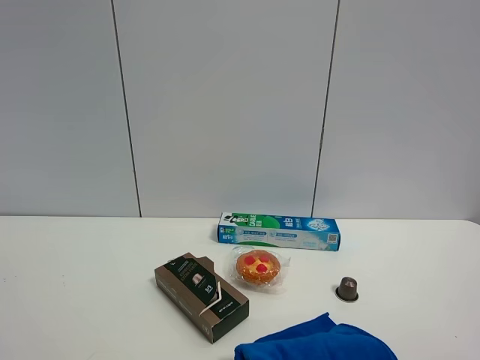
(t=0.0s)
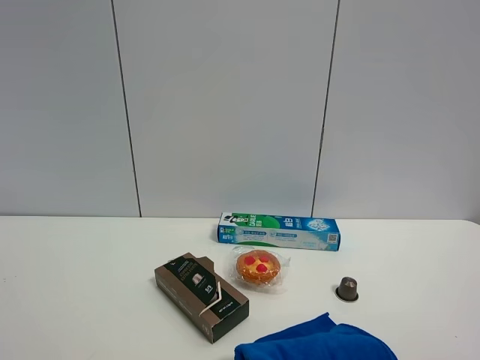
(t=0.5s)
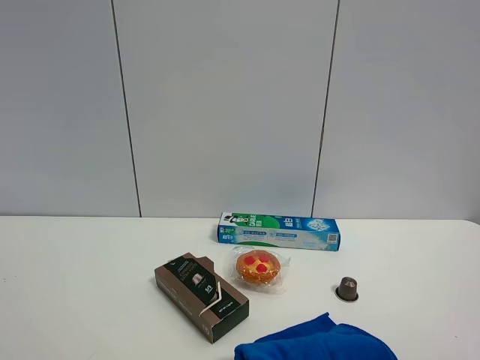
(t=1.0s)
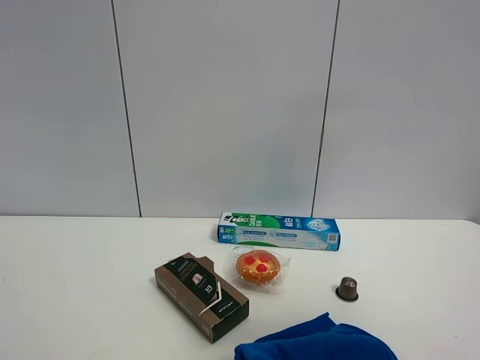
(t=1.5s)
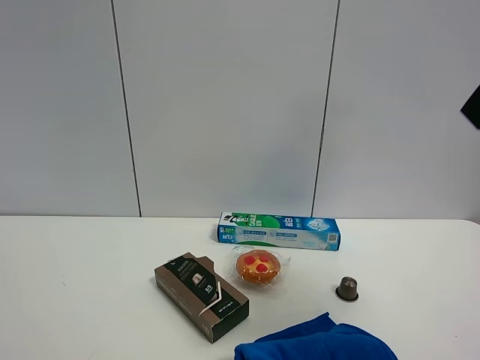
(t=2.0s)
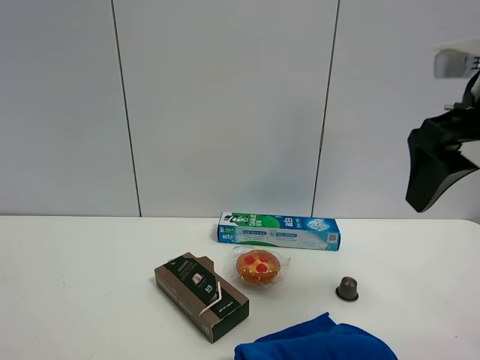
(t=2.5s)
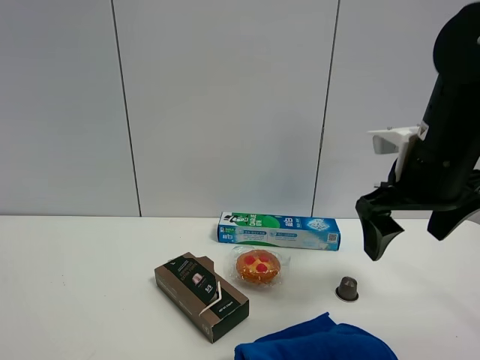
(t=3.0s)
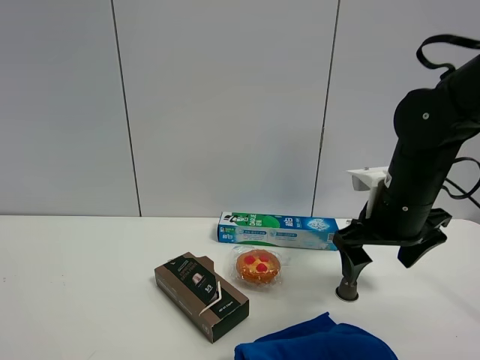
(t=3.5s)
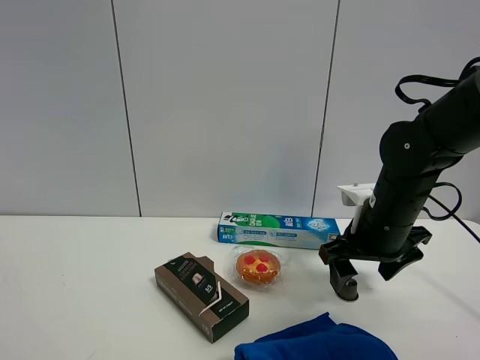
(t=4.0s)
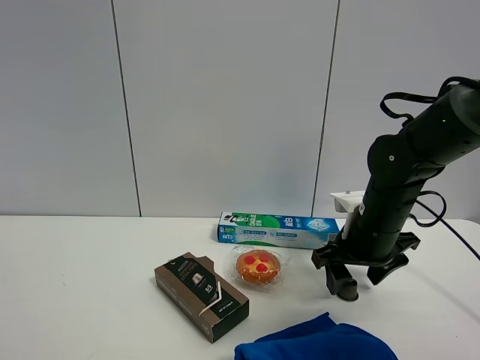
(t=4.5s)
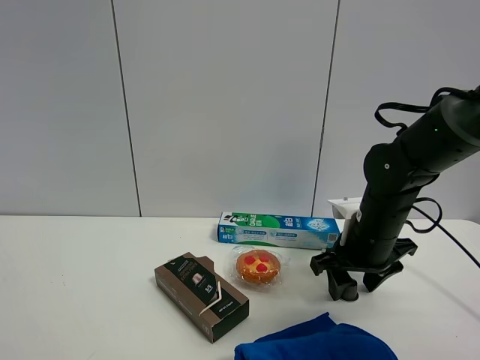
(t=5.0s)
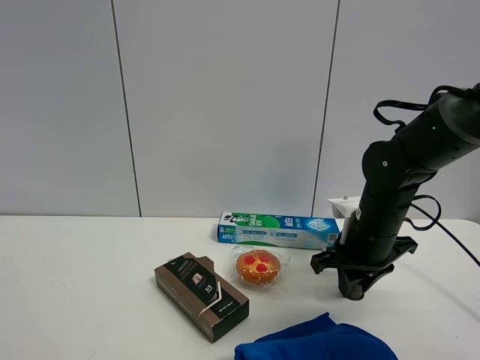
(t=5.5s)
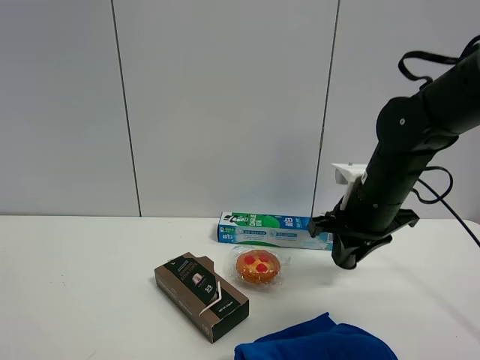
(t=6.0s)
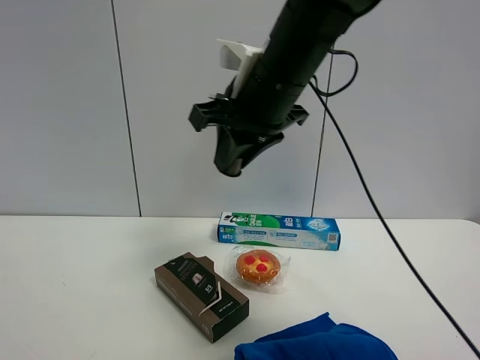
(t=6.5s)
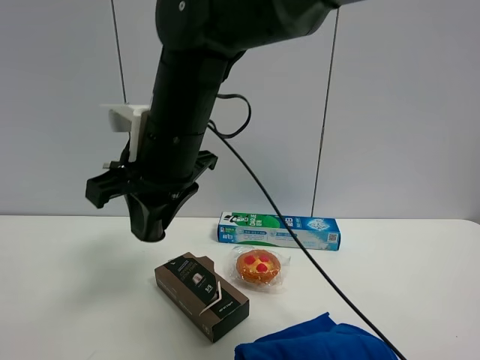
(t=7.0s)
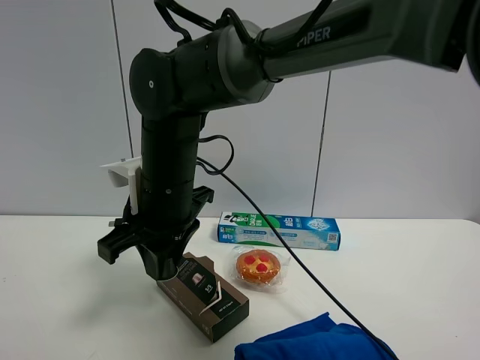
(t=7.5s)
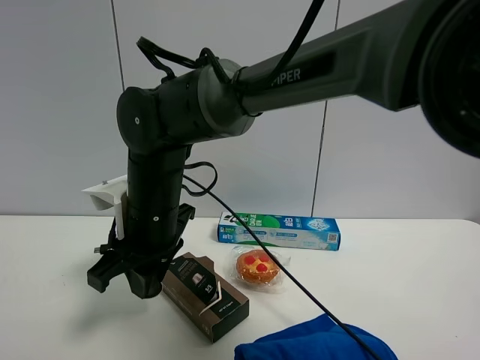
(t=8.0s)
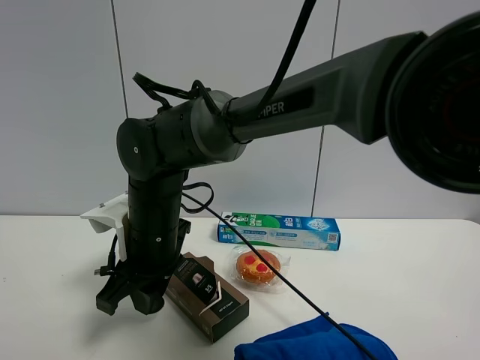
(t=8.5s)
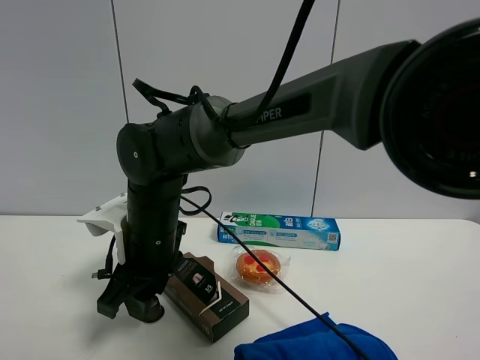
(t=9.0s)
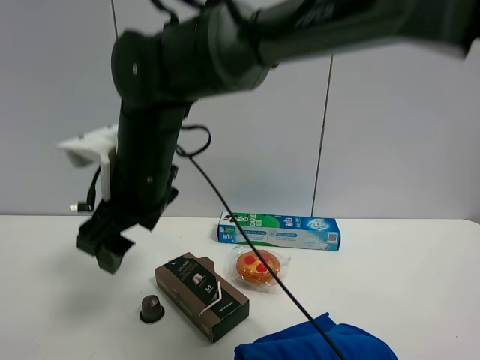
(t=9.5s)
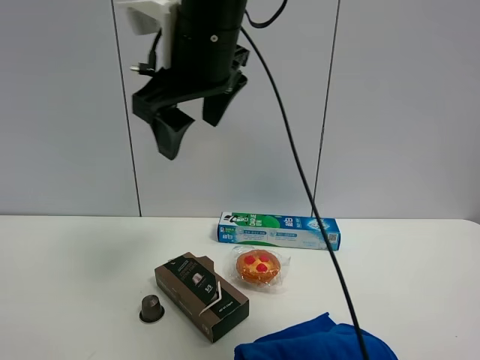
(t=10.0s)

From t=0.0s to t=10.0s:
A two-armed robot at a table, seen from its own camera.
Task of the whole recording: the gripper move the object.
Step, from t=0.0s to t=5.0s: Grasp the coffee capsule with the right gripper.
Step, from t=5.5s to t=9.0s: Place the coffee capsule on the table with the right gripper.
From t=0.0s to t=2.0s: The right gripper travels forward and upward by approximately 20 cm.
From t=2.0s to t=4.0s: The right gripper moves downward and forward, roughly 30 cm.
From t=4.0s to t=6.0s: The right gripper closes its fingers.
From t=6.0s to t=8.0s: The right gripper shifts approximately 30 cm to the left.
From t=8.0s to t=10.0s: The right gripper is displaced upward by roughly 20 cm, and opens.

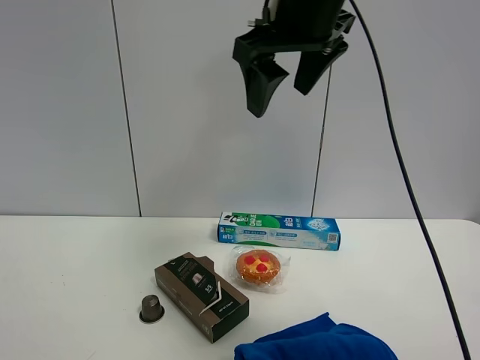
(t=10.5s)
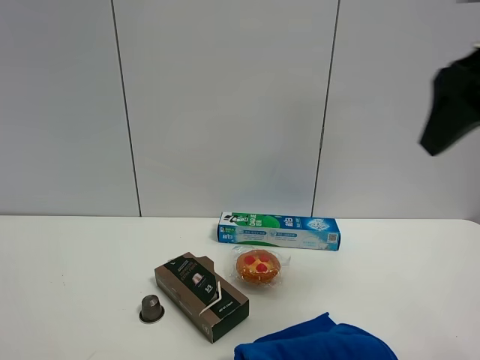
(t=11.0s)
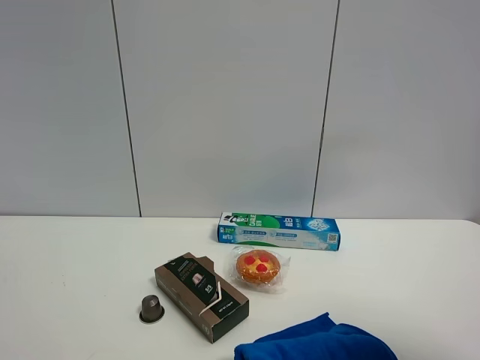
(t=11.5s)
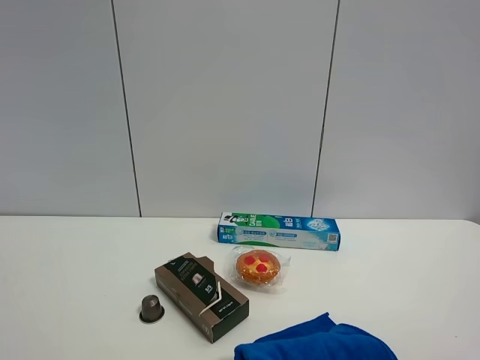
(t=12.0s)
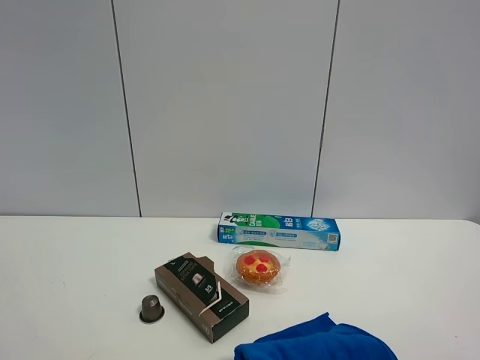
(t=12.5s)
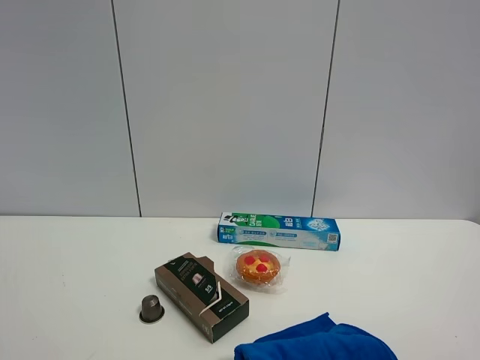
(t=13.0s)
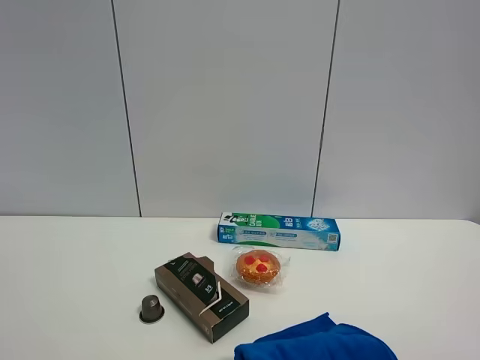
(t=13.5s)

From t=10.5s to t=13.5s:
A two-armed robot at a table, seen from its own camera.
Task of the whole recording: the gripper move the object.
From t=10.5s to t=12.0s: The right gripper goes about 40 cm backward and to the right.
From t=12.0s to t=13.5s: Neither gripper changes place.

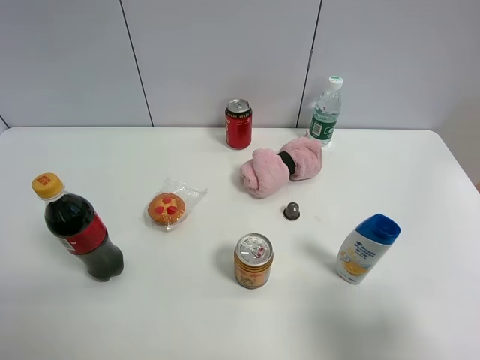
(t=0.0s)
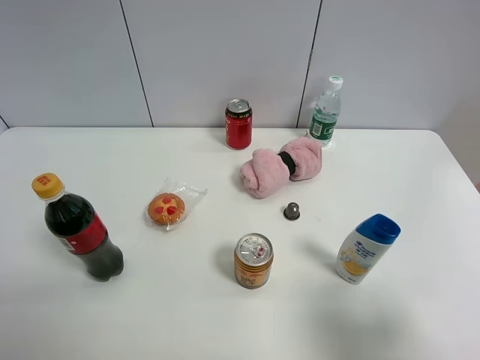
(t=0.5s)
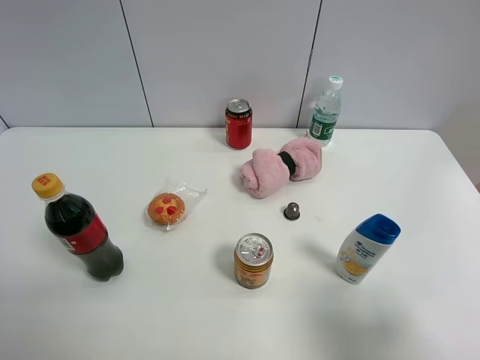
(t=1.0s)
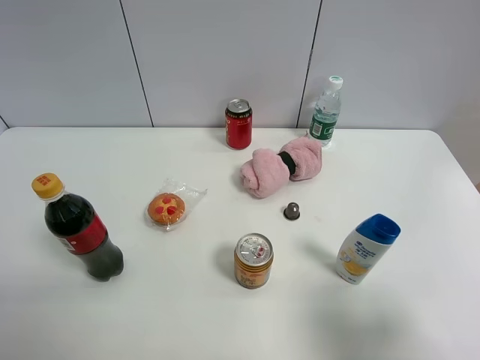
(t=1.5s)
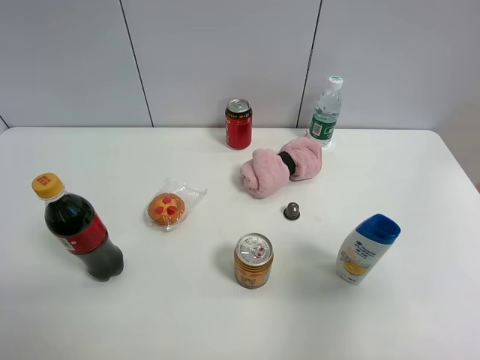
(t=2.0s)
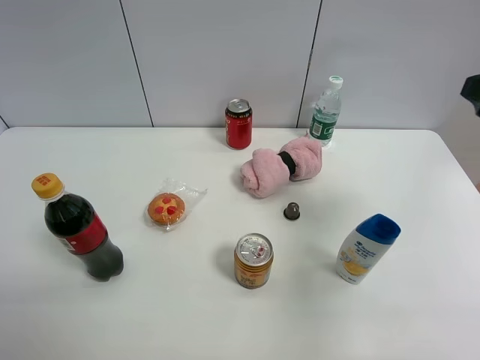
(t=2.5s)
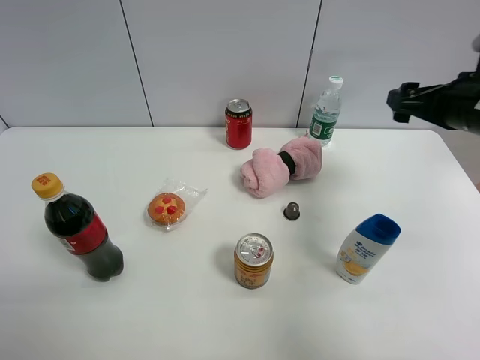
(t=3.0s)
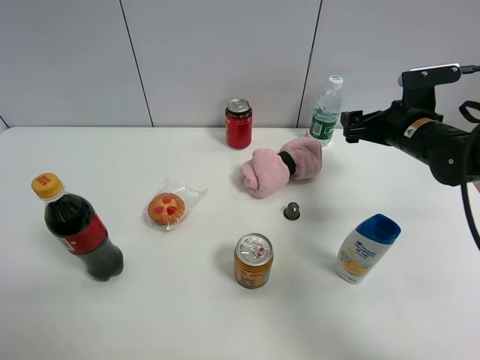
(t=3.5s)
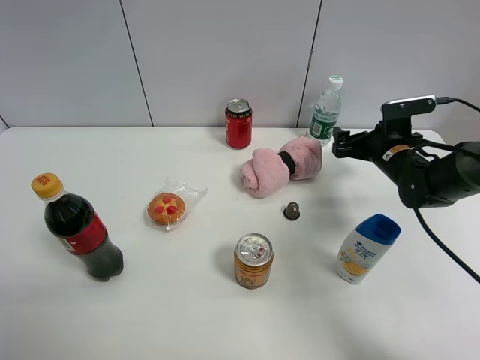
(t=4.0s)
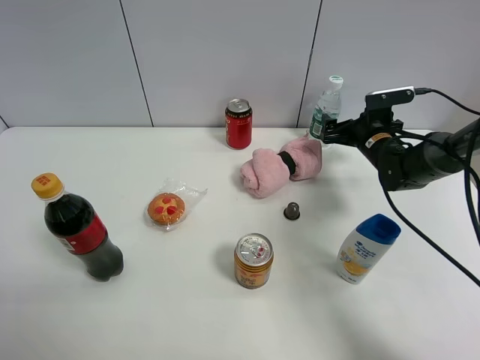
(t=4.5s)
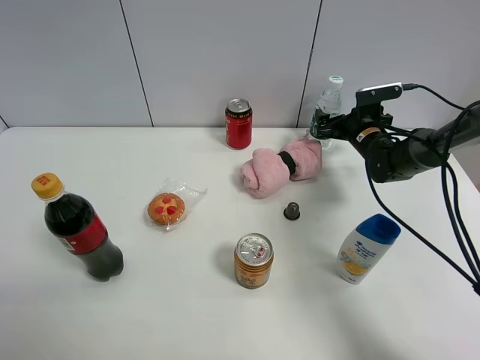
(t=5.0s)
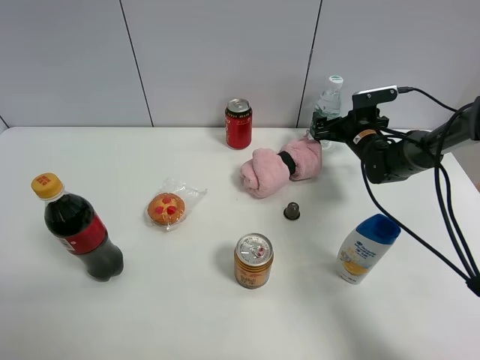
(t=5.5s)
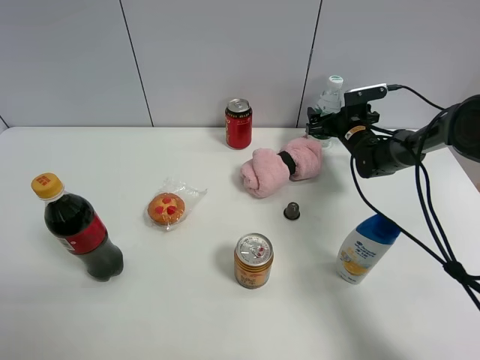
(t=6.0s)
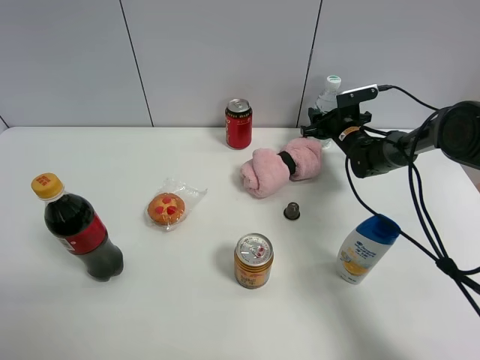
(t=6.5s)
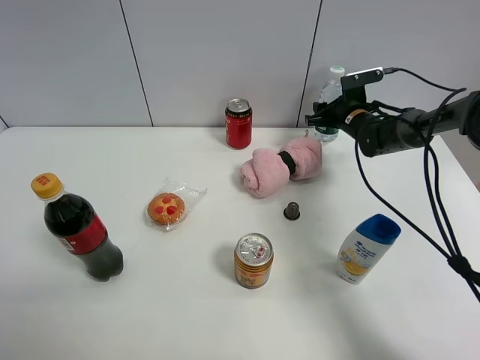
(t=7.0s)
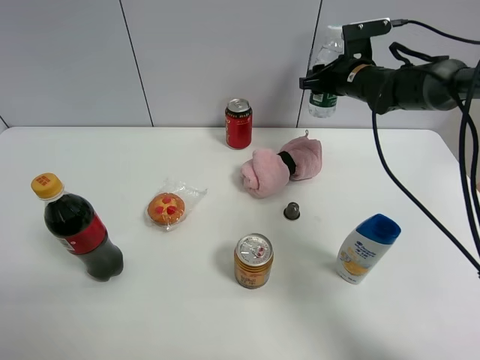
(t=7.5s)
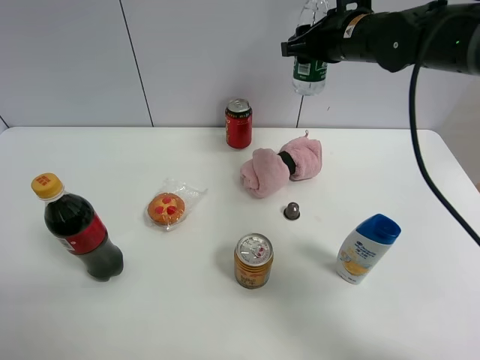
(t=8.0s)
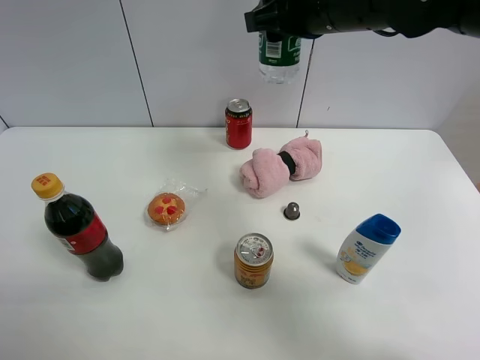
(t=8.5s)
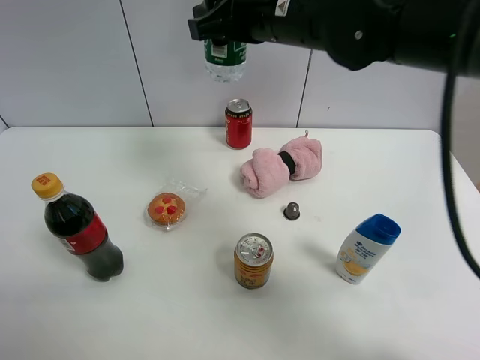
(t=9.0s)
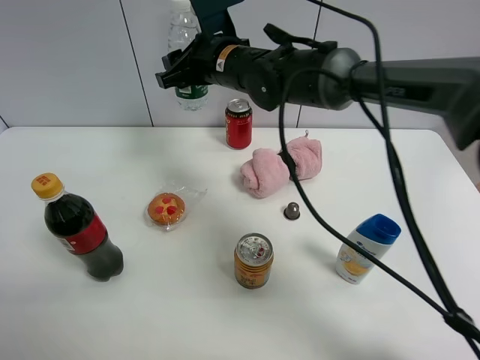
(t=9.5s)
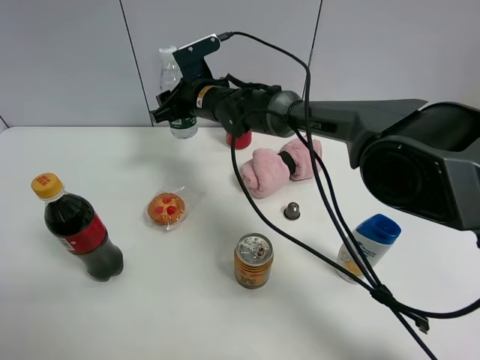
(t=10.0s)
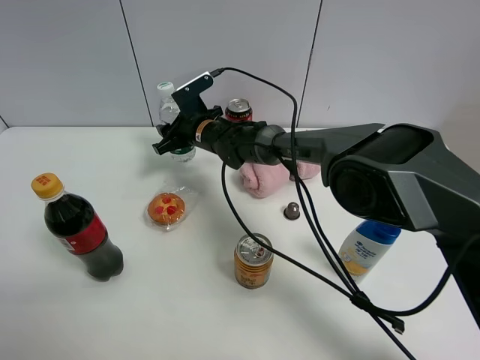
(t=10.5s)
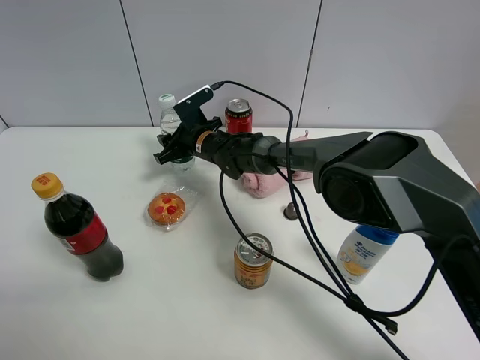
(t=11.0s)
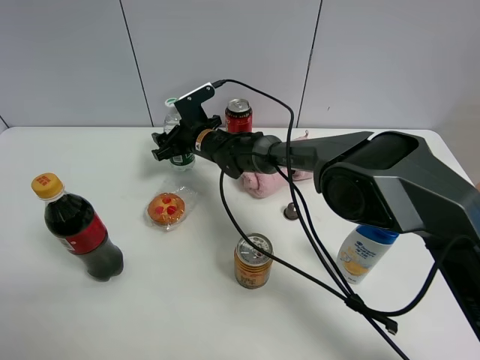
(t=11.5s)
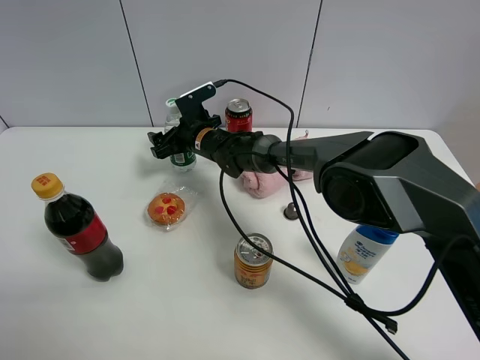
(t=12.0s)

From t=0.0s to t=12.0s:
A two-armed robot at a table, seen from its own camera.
Task of the whole recording: the gripper move the object.
Step, from t=0.0s to t=6.5s: Grasp the YiBao mineral water with the right gripper.
Step, from t=7.0s to t=11.5s: Place the YiBao mineral water on the table with the right gripper.
From t=0.0s to t=2.0s: The right gripper travels upward and forward by roughly 10 cm.
From t=2.0s to t=4.0s: The right gripper moves forward and downward, some 40 cm.
From t=4.0s to t=6.0s: The right gripper moves forward, roughly 15 cm.
From t=6.0s to t=8.0s: The right gripper shifts some 25 cm upward, and closes up.
From t=8.0s to t=10.0s: The right gripper moves to the left and downward, approximately 25 cm.
From t=10.0s to t=12.0s: The right gripper shifts about 10 cm downward, and opens its fingers.
